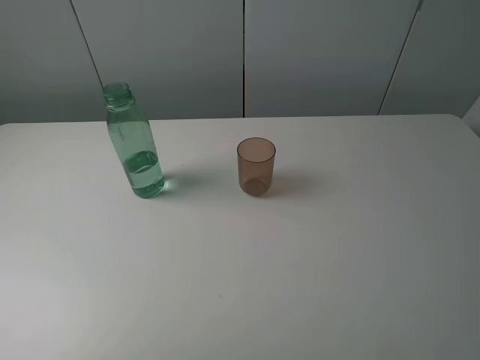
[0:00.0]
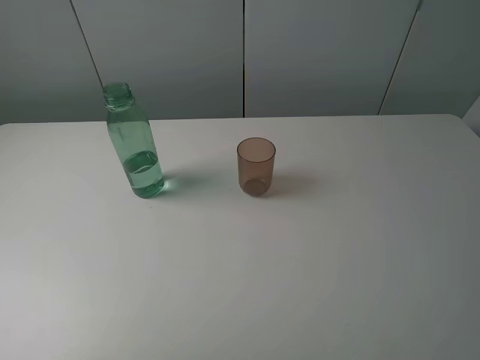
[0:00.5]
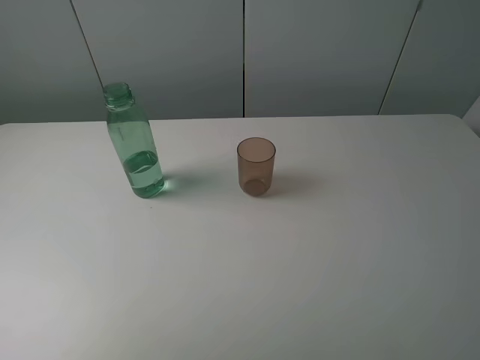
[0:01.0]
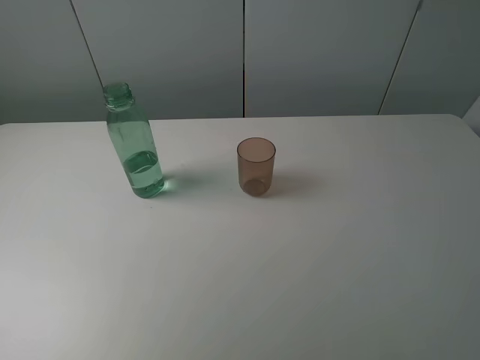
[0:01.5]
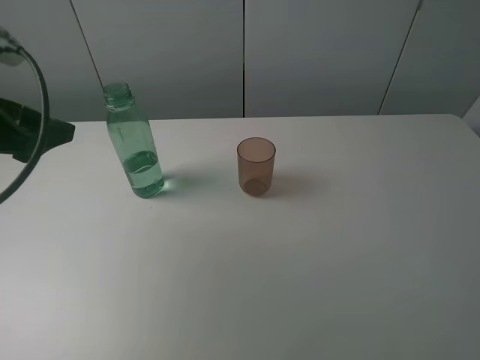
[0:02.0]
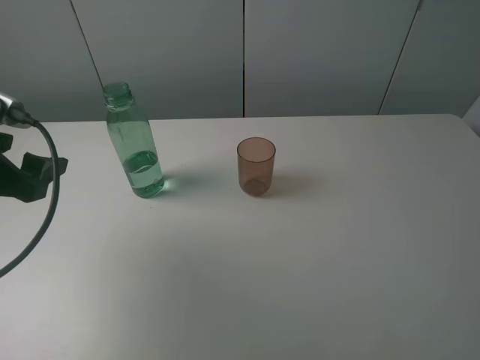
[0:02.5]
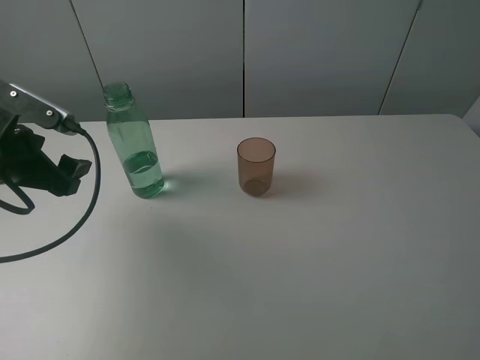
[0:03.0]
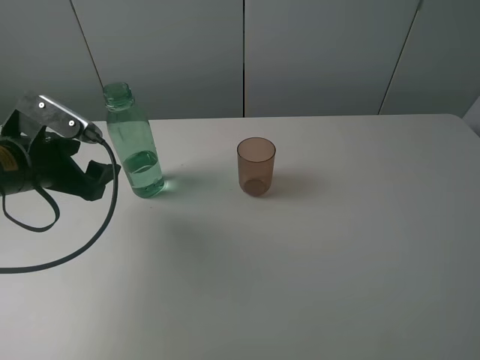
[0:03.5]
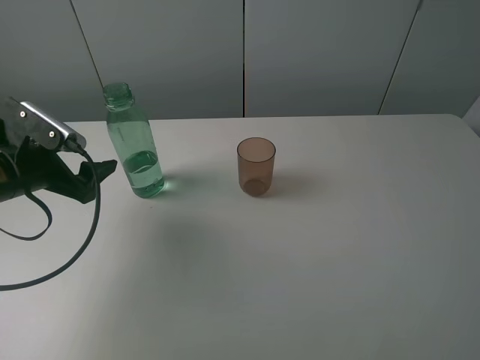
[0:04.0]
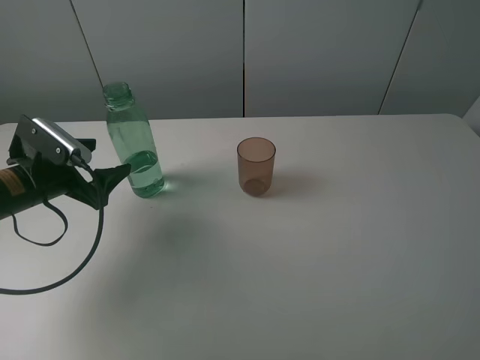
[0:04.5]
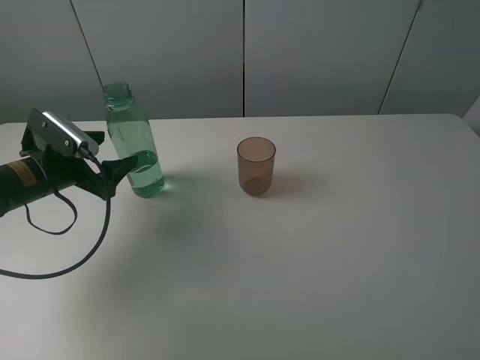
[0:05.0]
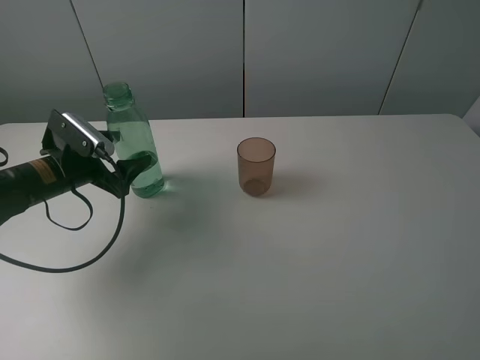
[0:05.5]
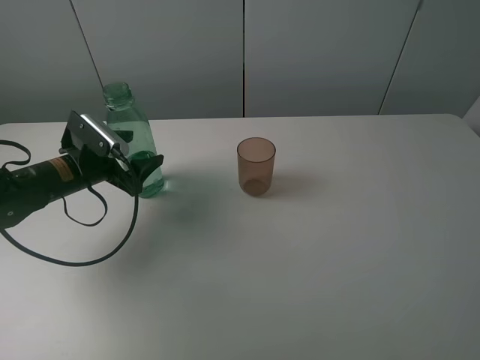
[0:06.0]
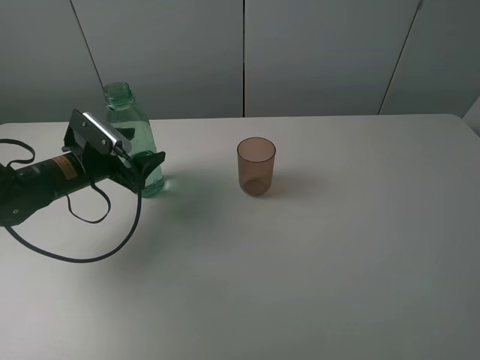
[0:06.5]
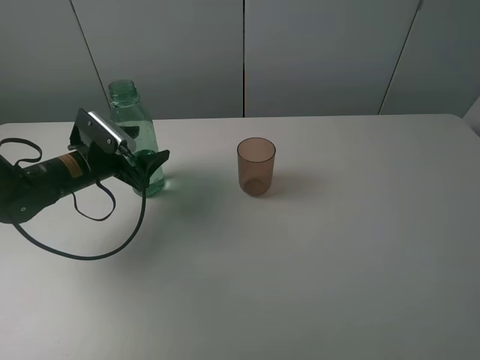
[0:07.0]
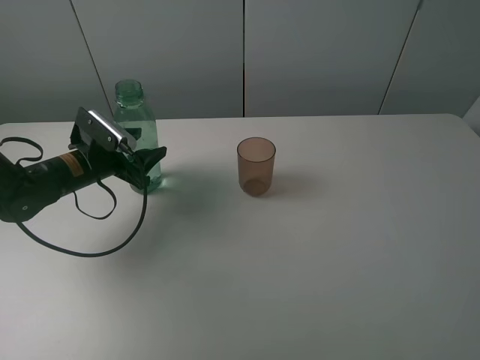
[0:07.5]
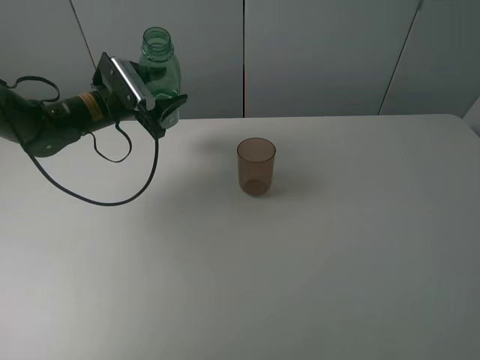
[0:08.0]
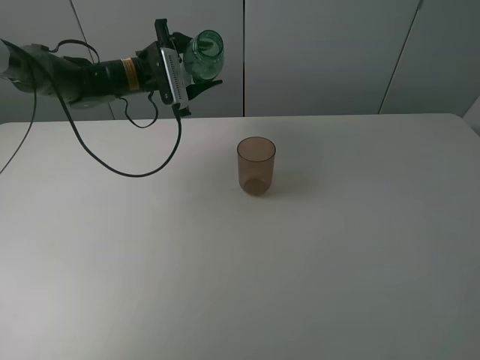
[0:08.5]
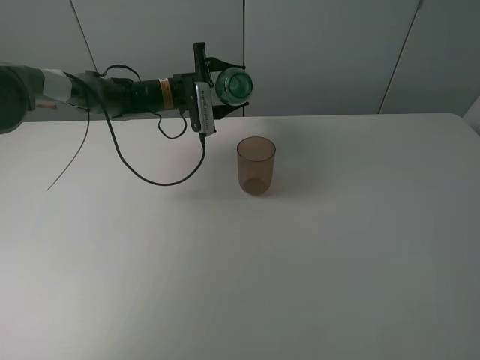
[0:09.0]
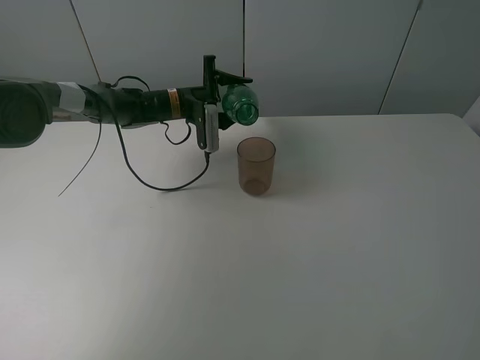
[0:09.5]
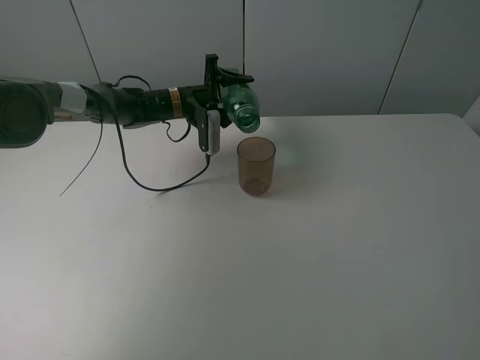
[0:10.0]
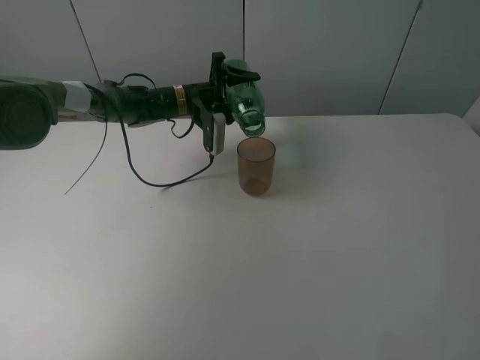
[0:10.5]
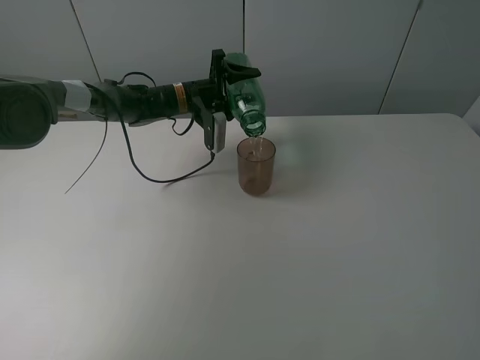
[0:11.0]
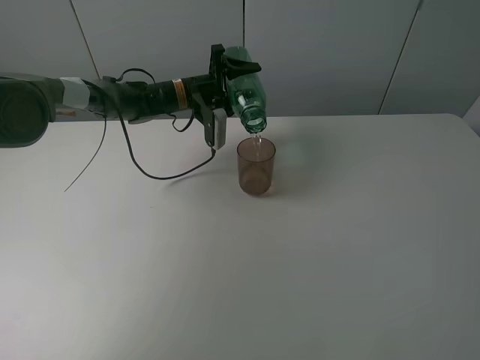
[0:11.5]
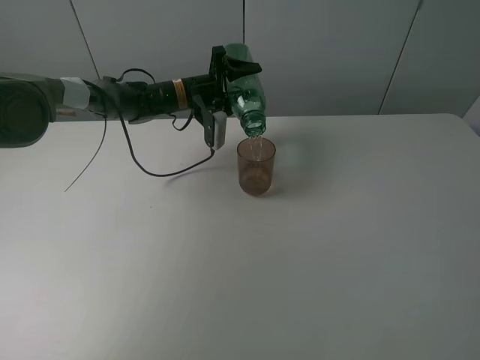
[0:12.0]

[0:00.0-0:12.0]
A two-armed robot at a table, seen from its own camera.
Task of the whole recording: pick up the bottle filled with water and pour it into the pink cup.
Step, 0:00.0 to 0:07.0: Grasp the green bottle with the left gripper.
0:00.0 to 0:02.0: The left gripper shifts about 20 cm forward.
0:02.0 to 0:04.0: The left gripper is displaced downward and forward by some 10 cm.
0:04.0 to 0:06.0: The left gripper moves forward and downward, about 10 cm.
0:06.0 to 0:08.0: The left gripper moves forward and upward, roughly 10 cm, and closes up.
0:08.0 to 0:10.0: The left gripper is displaced to the right and forward by approximately 15 cm.
0:10.0 to 0:12.0: The grippers make only small movements.

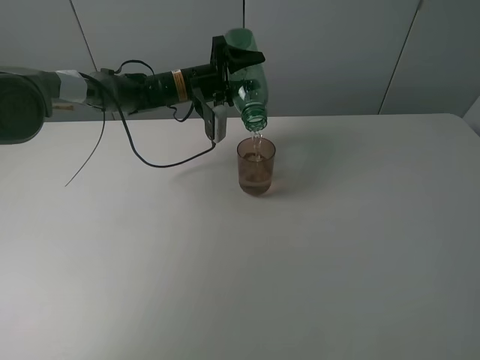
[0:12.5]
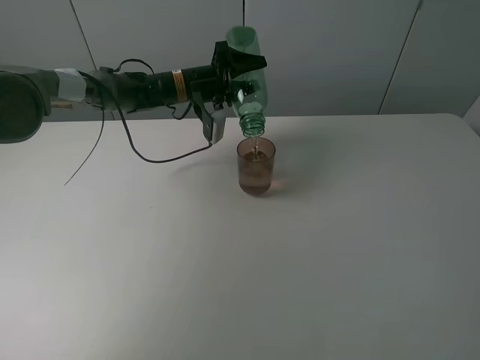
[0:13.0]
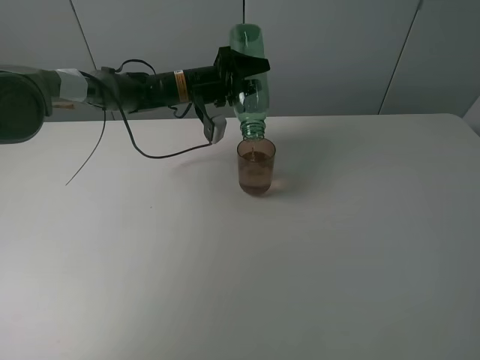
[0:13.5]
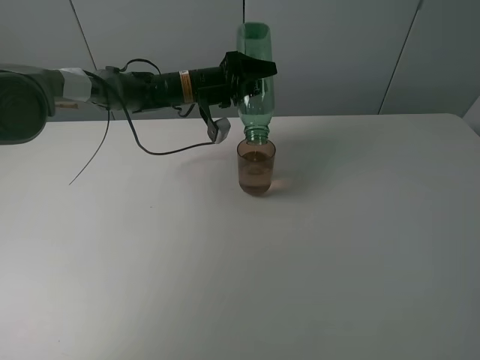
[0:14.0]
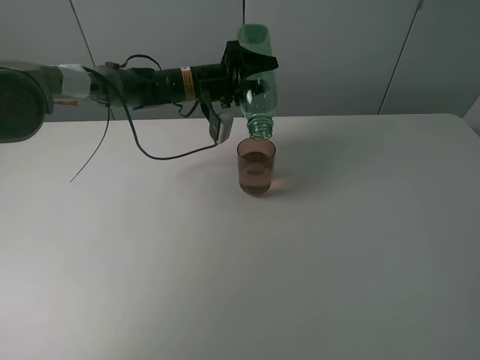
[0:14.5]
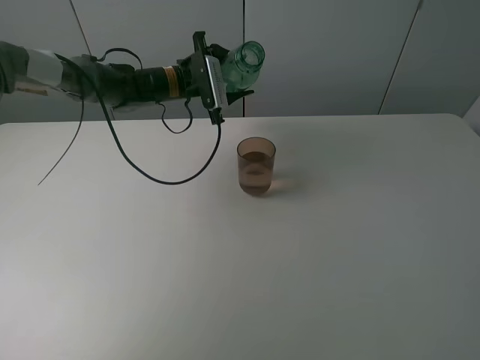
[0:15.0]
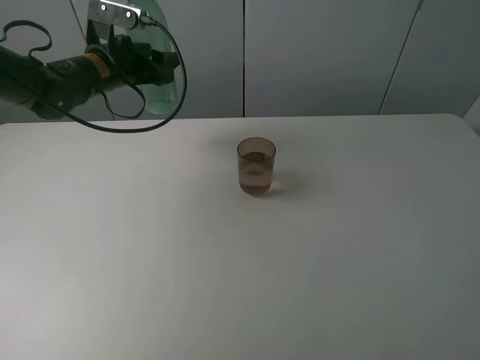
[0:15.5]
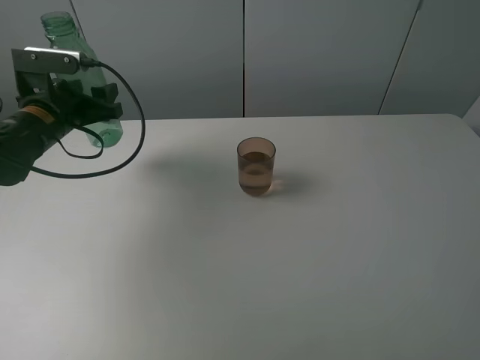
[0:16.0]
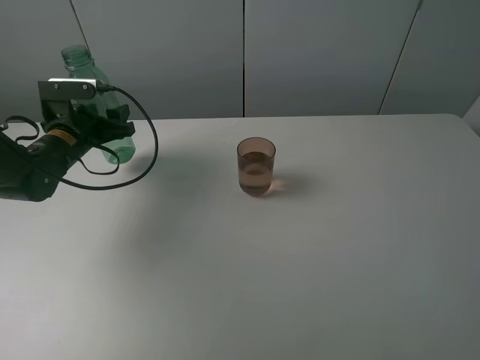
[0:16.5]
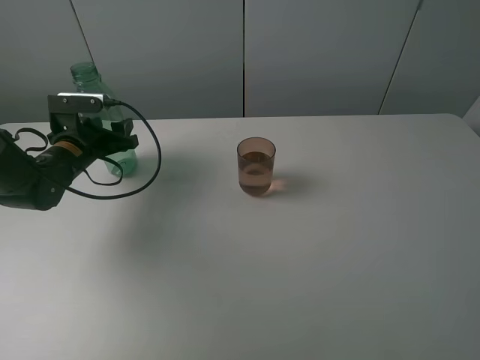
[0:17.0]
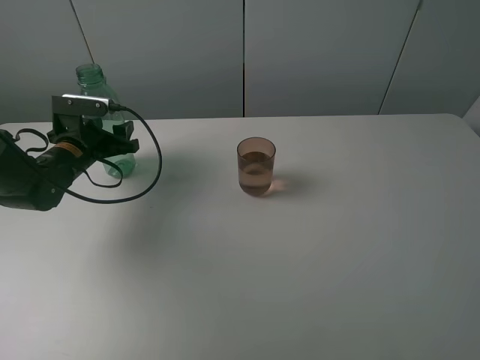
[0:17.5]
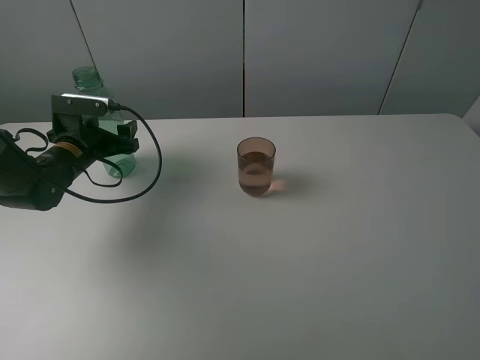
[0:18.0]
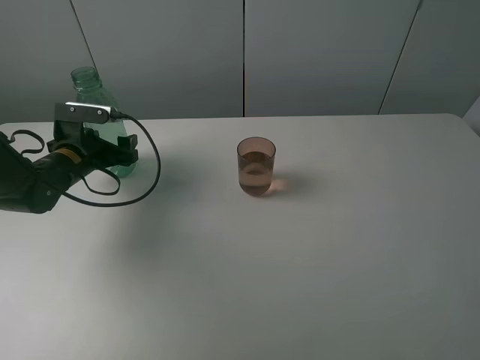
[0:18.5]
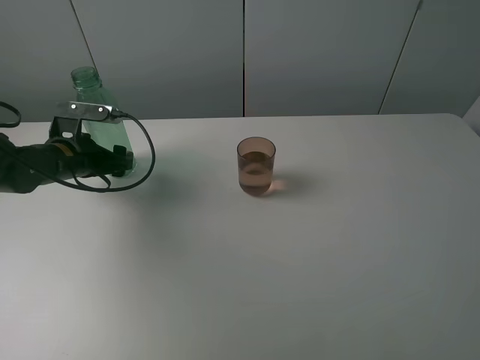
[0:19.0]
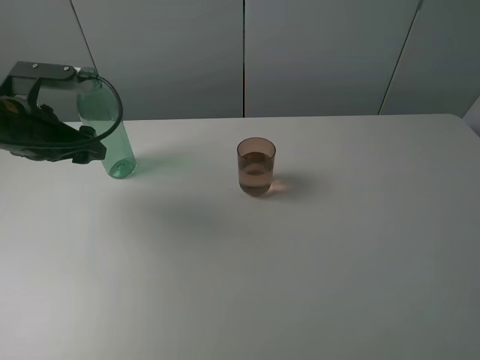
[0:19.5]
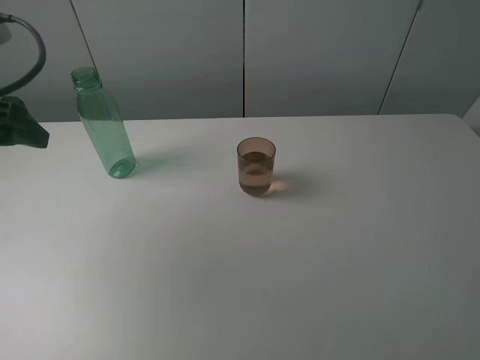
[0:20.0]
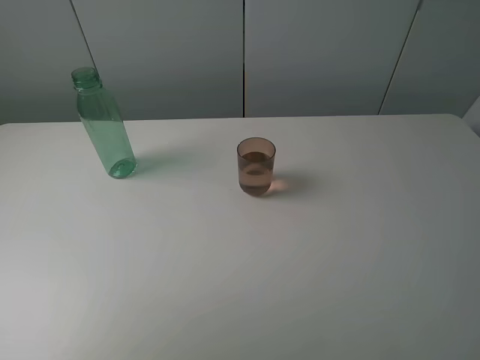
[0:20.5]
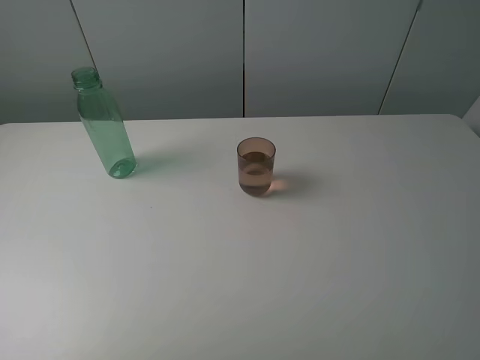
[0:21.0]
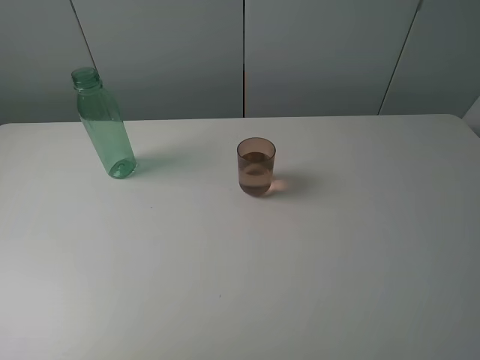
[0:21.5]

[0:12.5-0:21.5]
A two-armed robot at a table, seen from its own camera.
Task of the whole recording: pick up the bottle filled with water and pour it into the pink cup.
Step, 0:14.5 to 0:18.5: Place the green bottle with the left gripper.
0:12.5 to 0:14.5: There are only small adjustments of the grippers.
0:14.5 to 0:17.0: The left gripper travels to the left and backward by approximately 25 cm.
0:17.0 to 0:19.5: The left gripper moves upward and backward, roughly 15 cm, and opens its fingers.
0:19.5 to 0:21.5: The left gripper goes approximately 30 cm backward.
